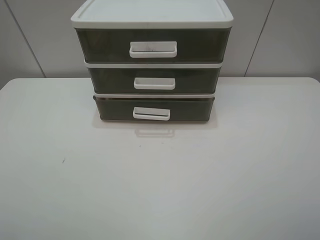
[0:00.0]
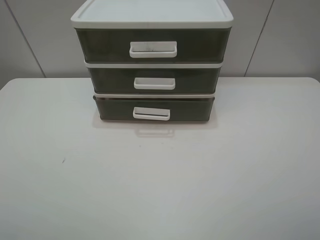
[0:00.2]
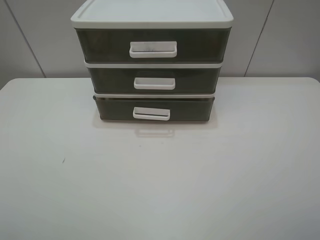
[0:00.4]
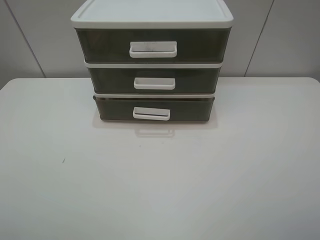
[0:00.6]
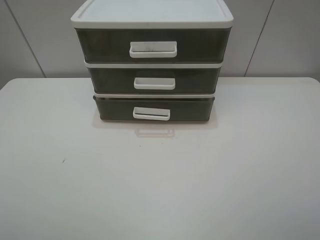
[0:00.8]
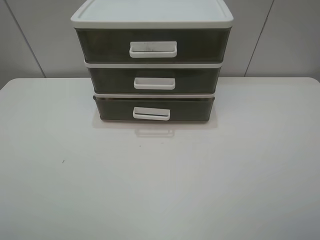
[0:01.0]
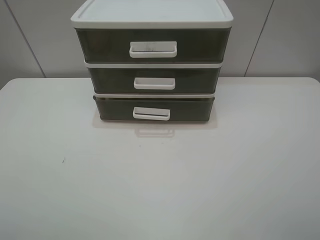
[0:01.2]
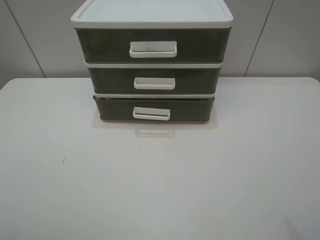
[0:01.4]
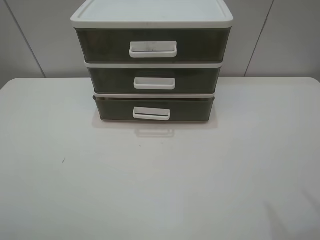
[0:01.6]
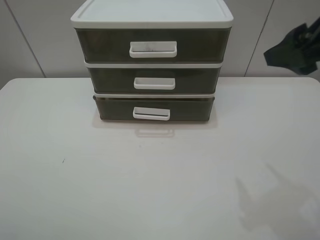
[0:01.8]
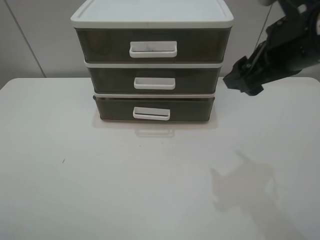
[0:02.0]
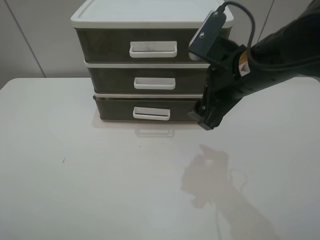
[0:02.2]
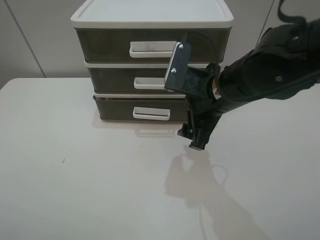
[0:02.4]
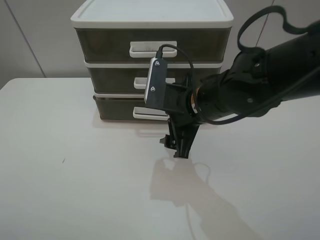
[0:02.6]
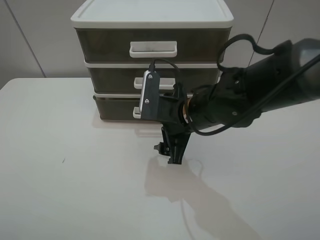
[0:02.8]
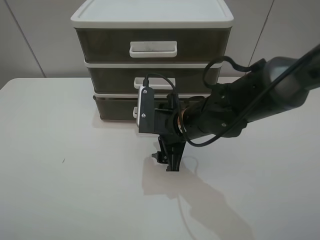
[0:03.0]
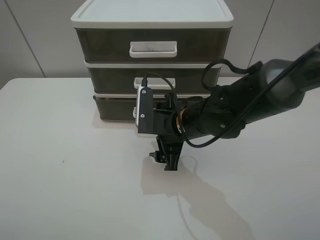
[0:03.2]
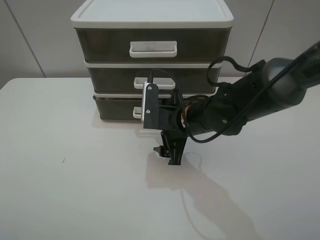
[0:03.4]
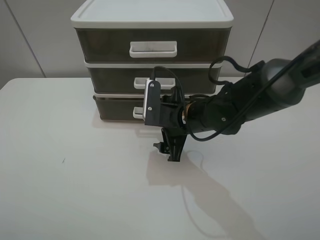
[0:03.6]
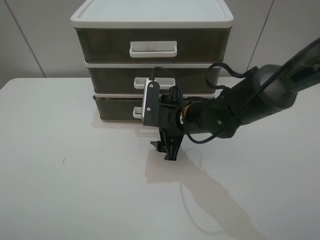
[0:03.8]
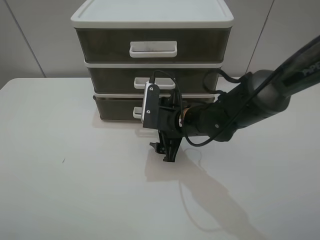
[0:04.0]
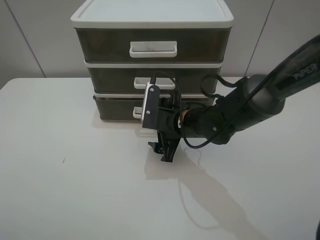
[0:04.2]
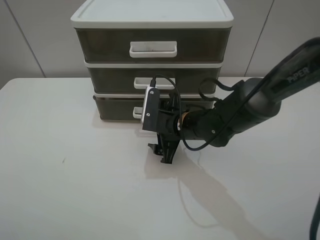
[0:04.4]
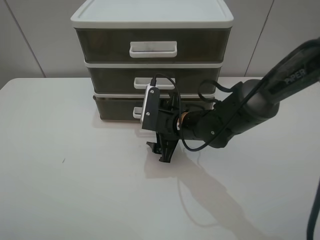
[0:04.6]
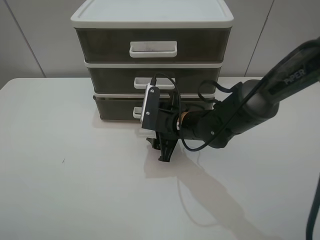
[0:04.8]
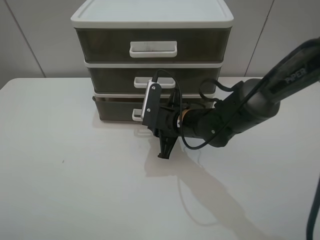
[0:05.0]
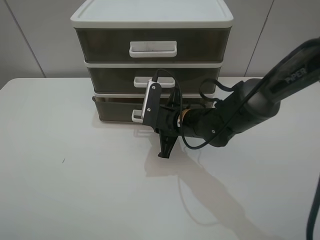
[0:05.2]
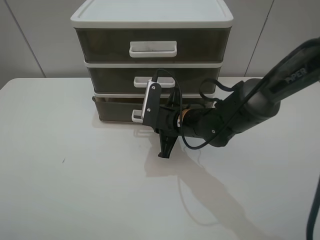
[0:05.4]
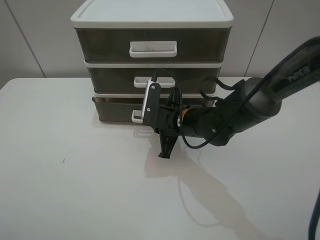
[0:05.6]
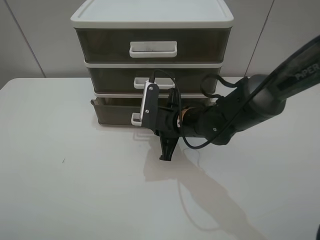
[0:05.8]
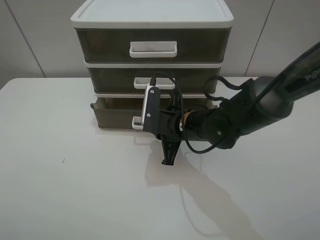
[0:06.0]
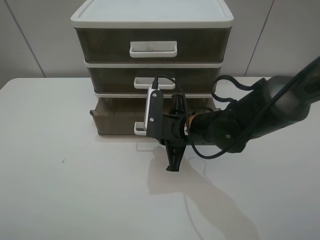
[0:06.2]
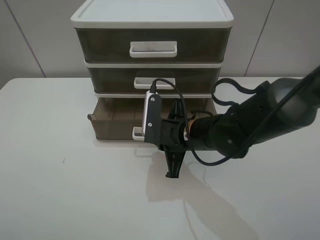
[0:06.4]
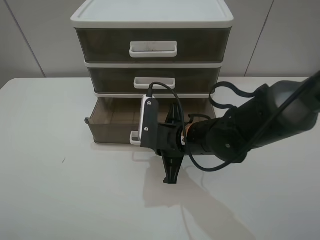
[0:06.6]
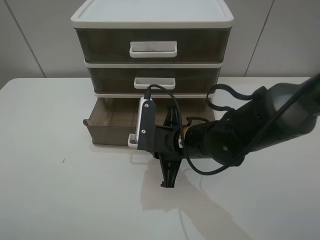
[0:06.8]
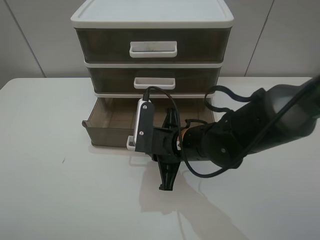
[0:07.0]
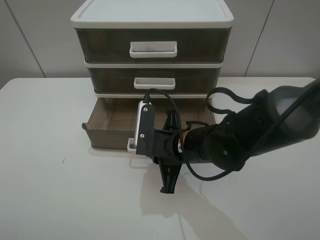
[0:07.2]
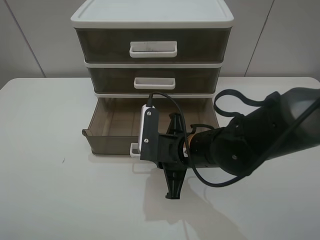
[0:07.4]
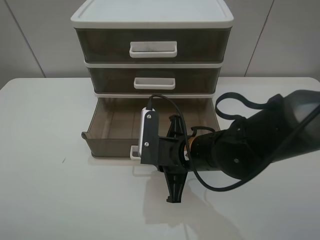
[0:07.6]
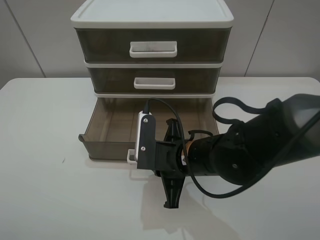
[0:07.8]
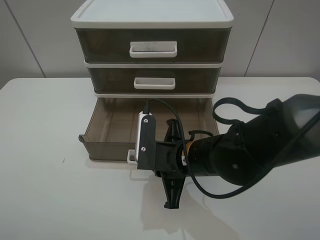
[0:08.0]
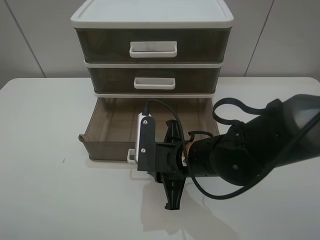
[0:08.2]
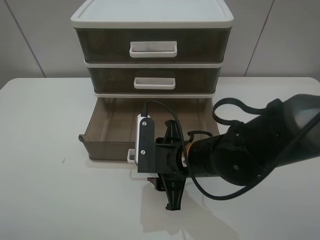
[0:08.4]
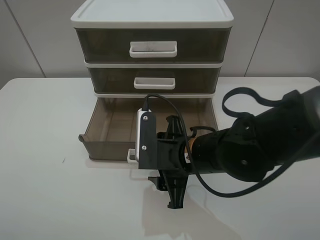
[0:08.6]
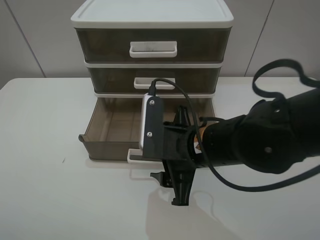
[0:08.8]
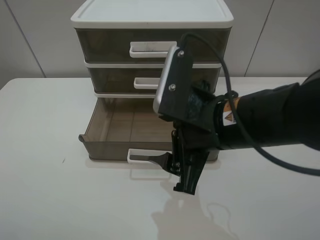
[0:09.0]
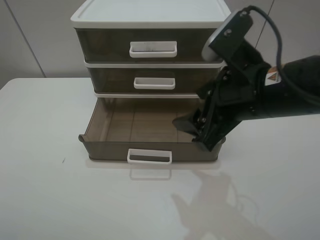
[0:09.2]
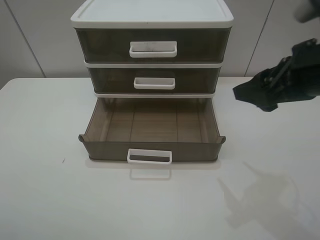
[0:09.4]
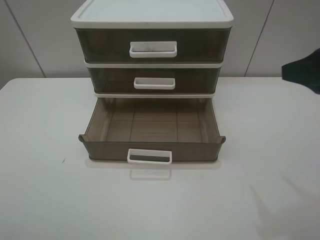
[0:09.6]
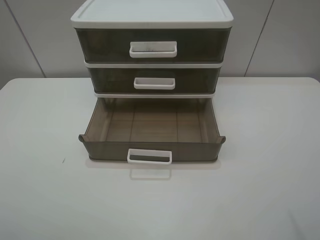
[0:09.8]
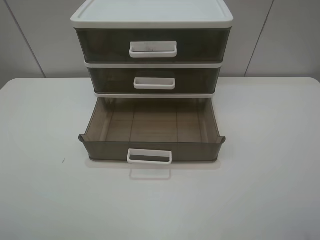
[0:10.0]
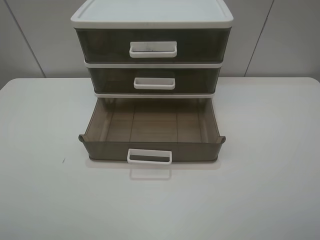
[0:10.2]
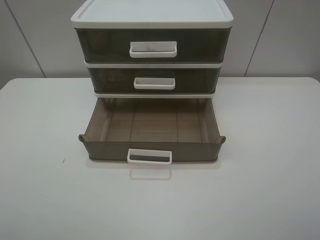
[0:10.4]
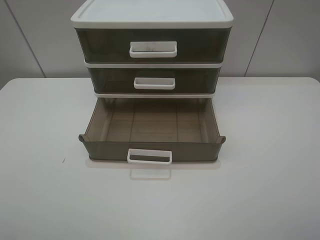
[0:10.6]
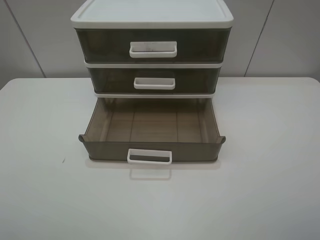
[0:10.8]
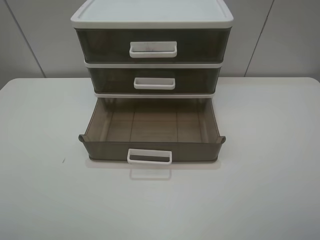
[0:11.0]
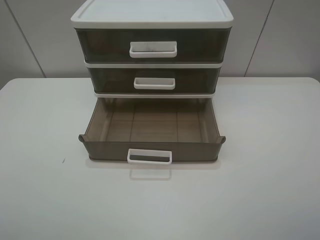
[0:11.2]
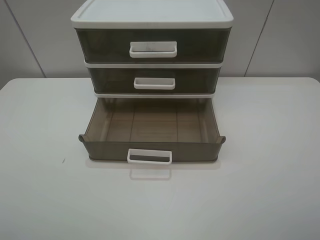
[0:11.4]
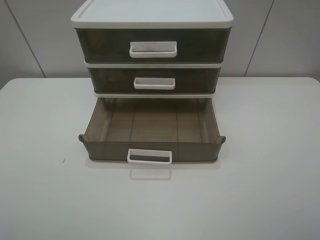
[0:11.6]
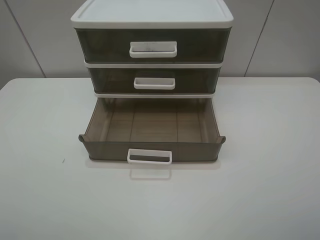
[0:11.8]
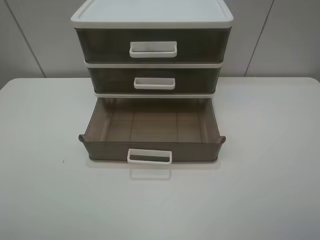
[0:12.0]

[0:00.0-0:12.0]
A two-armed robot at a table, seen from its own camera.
Task of the whole recording: open the bottom drawer.
Step, 0:00.0 to 0:05.4: Grab the bottom drawer with the right gripper.
Step, 0:05.6 to 0:08.6: Pull open the drawer with the right gripper.
0:01.6 to 0:03.0: The right gripper moves downward, to the left and forward, some 35 cm.
0:03.0 to 0:04.4: The grippers stay close to where they were, moving slightly.
0:04.4 to 0:06.0: The right gripper closes up.
0:06.0 to 0:07.6: The right gripper shifts roughly 5 cm backward.
0:07.6 to 0:09.0: The right gripper heads upward, covering approximately 10 cm, and opens up.
0:09.0 to 0:10.4: The right gripper goes about 30 cm to the right, backward and upward.
